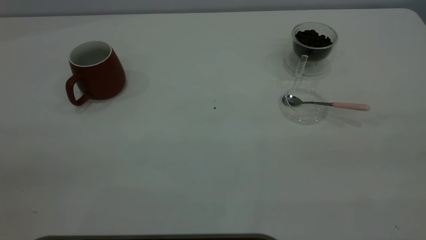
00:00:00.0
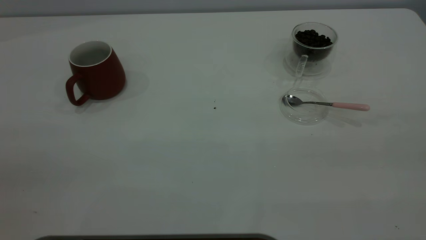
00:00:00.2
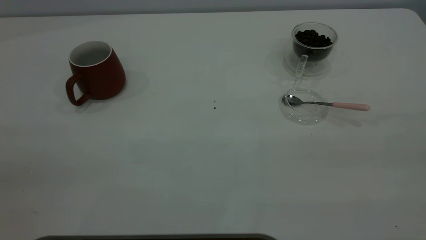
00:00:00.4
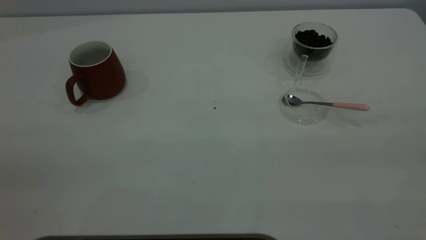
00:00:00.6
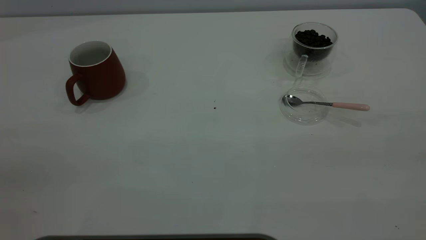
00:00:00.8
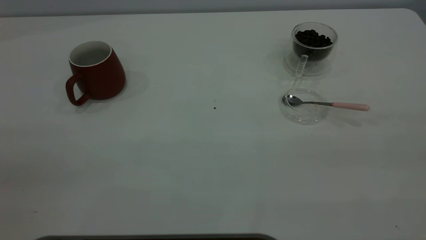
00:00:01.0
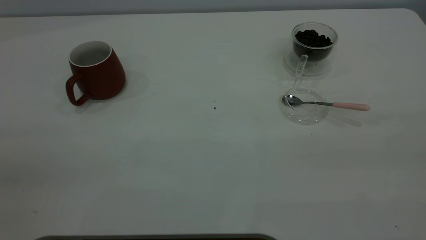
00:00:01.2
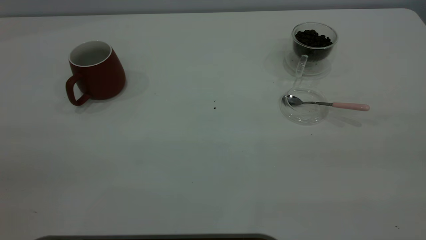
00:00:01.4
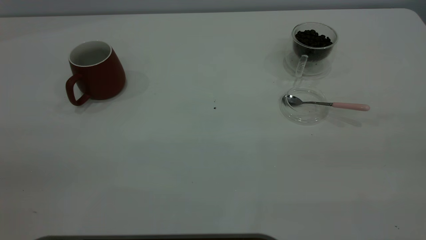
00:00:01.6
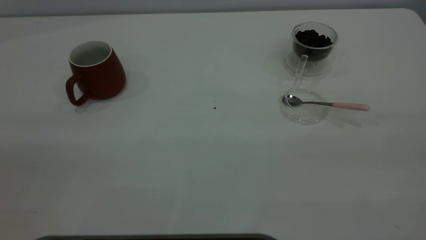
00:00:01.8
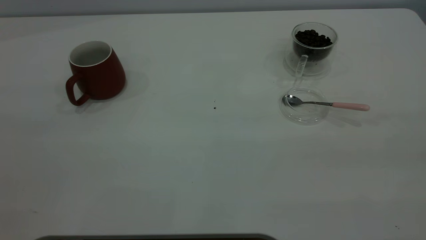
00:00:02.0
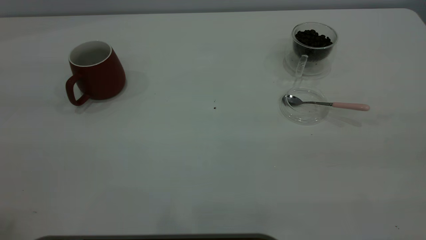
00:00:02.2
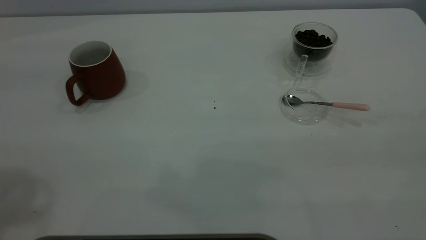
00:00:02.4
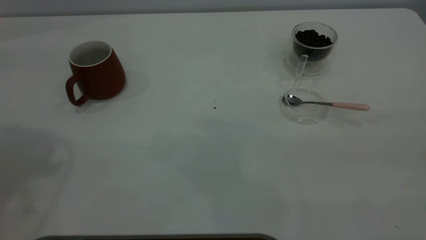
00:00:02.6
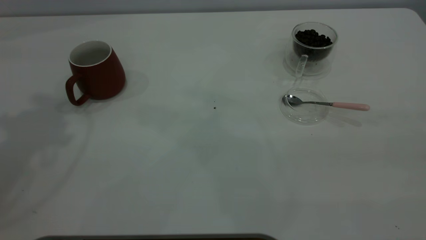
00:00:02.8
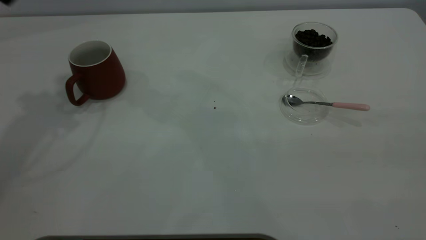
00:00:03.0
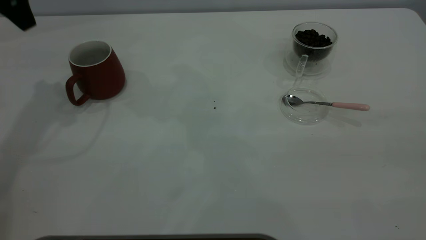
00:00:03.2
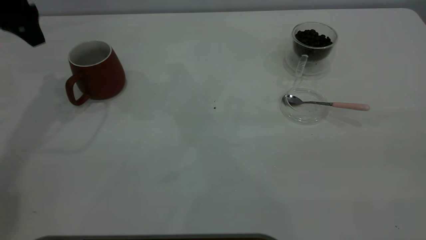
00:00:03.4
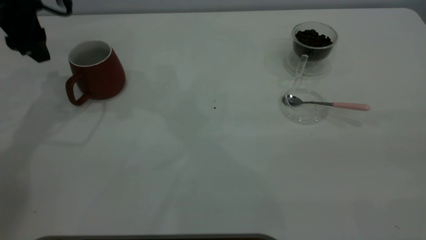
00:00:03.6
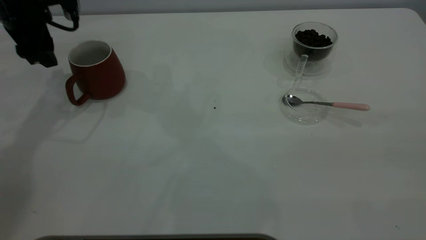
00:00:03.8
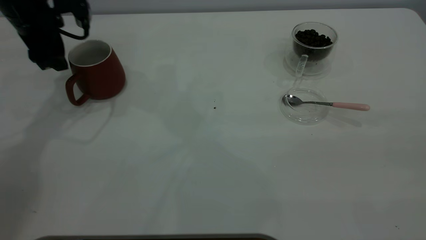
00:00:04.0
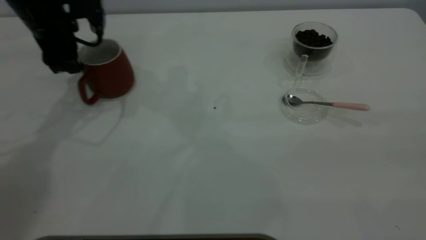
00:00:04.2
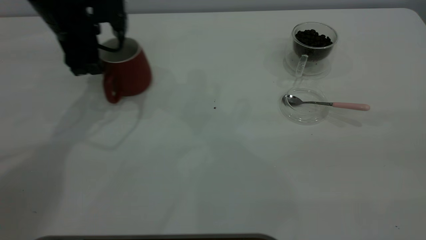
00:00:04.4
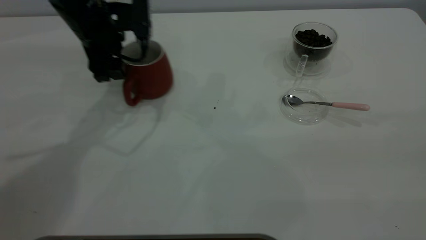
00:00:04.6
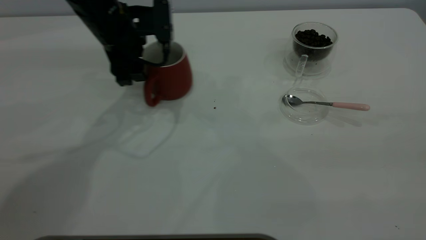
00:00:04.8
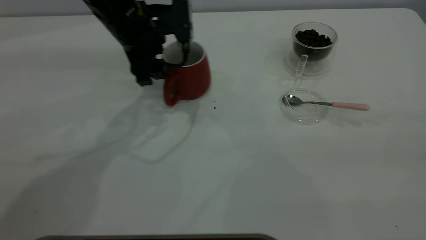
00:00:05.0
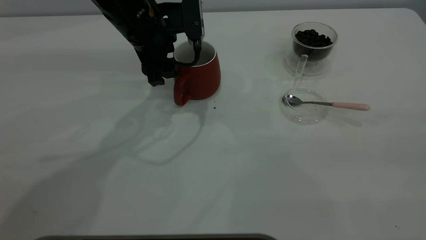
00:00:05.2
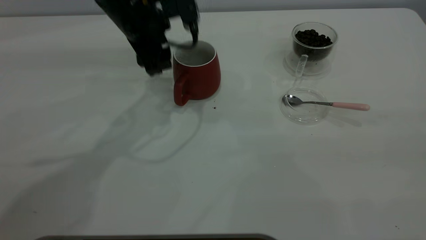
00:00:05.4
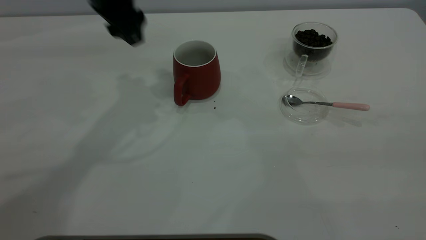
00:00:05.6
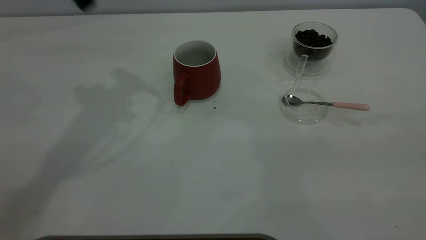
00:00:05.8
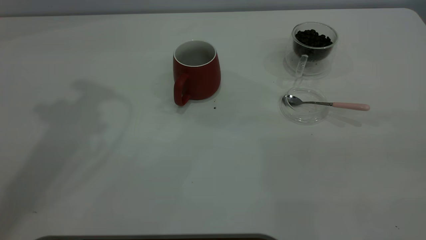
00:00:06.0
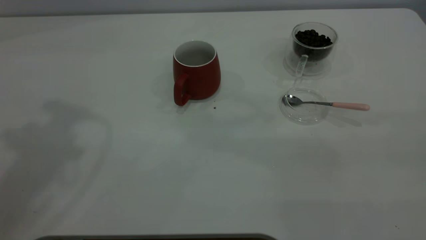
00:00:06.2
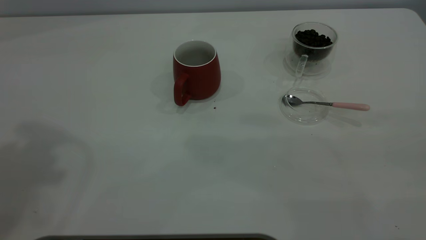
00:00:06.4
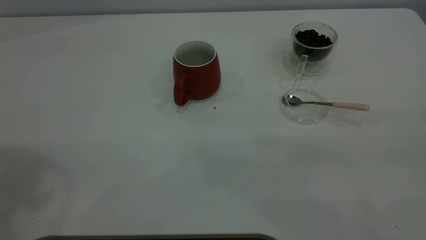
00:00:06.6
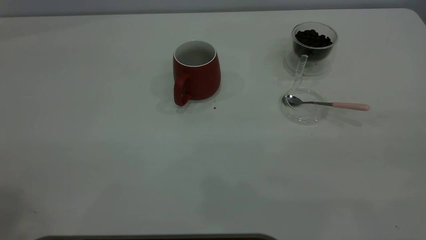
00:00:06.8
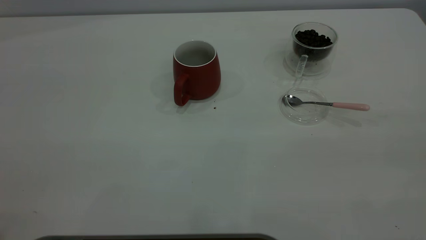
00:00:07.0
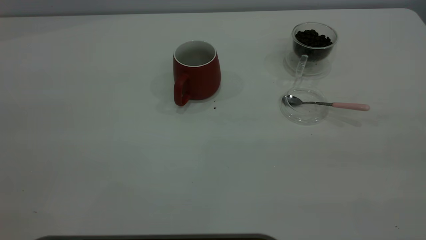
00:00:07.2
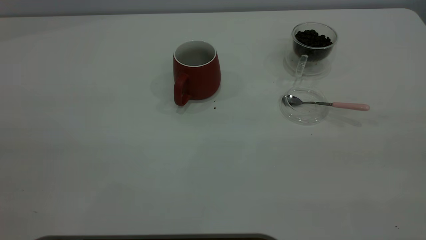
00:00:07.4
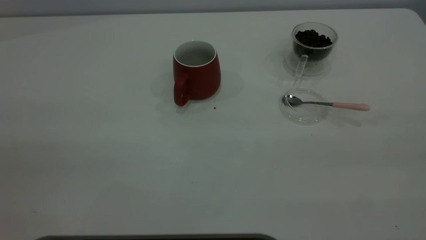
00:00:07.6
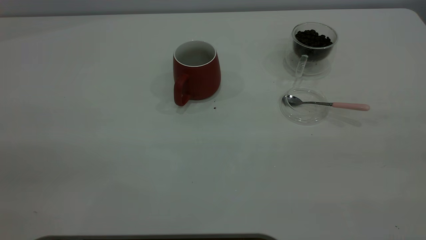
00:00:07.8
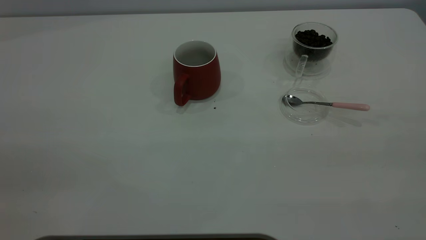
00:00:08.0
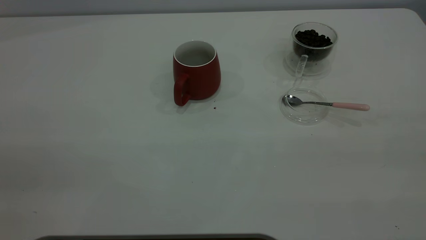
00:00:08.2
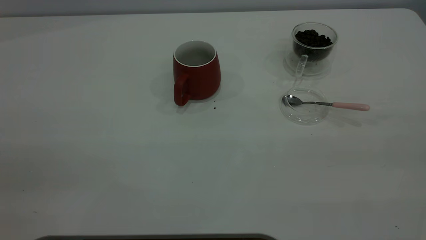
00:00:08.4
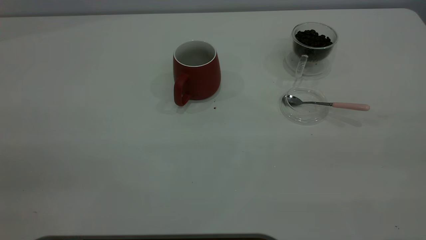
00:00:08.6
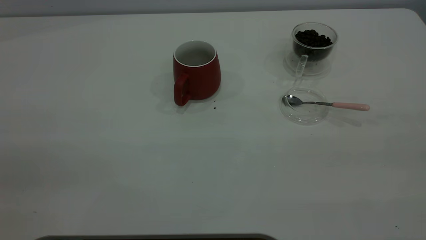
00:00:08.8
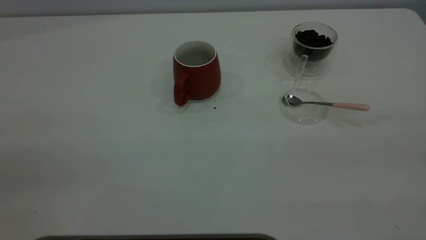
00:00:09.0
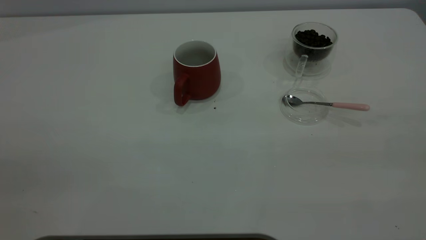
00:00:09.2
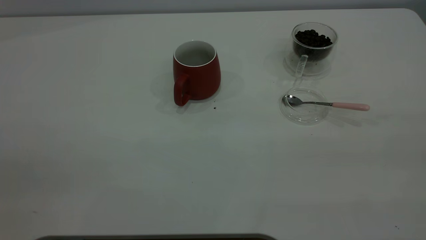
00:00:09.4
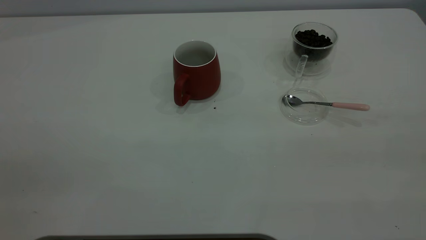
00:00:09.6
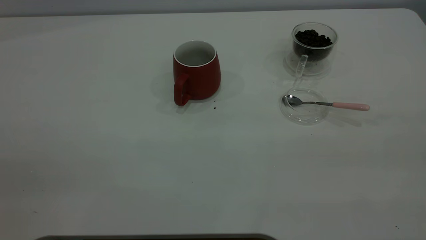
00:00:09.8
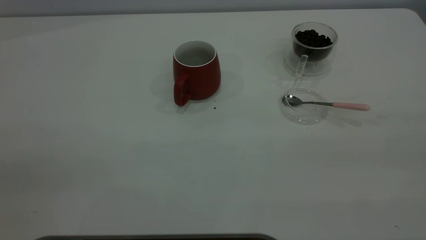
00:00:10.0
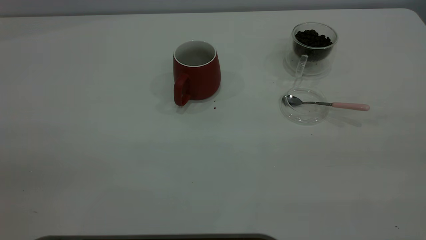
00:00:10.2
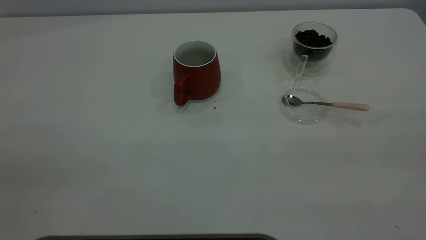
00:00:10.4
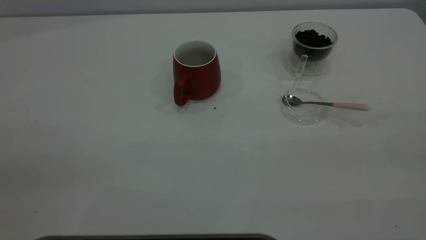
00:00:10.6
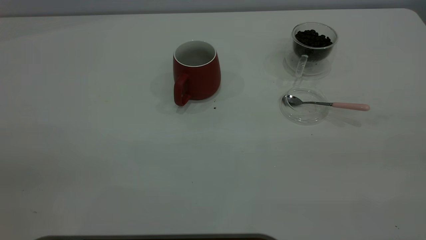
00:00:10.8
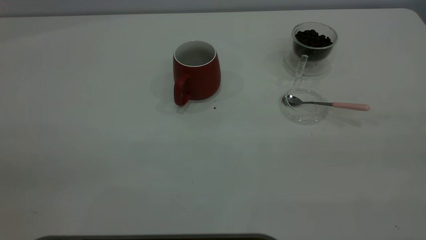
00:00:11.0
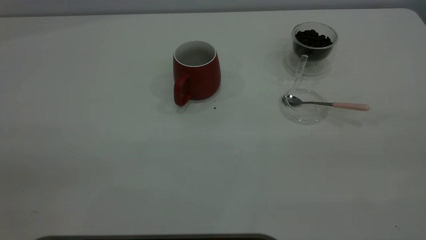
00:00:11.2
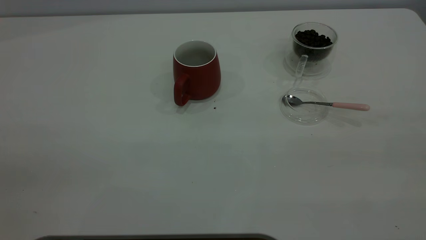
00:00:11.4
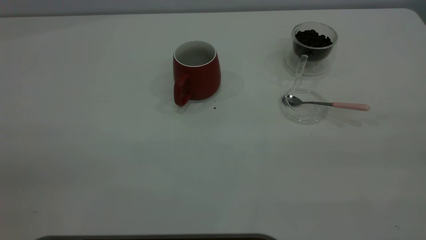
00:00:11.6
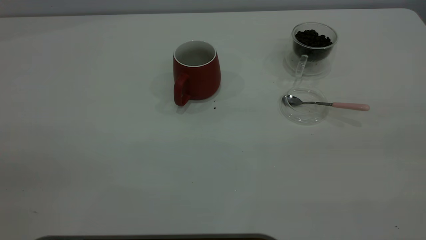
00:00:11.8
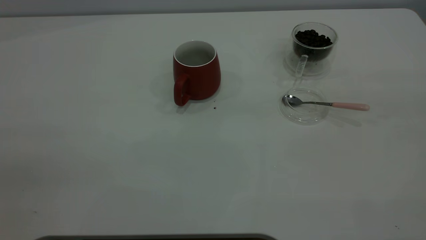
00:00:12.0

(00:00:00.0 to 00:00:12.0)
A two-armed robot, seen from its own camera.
Task of the whole recording: the left gripper place the red cup in the center of the table, the right gripper take the pink spoon from the cup lid and scoop out the coffee beans from the coffee cup and put them into the red cup, the right gripper put the spoon back into the cup lid.
Step, 00:00:00.0 - 00:00:05.4: Move the cup to the center of view.
00:00:00.0 - 00:00:01.6: Neither gripper changes place.
00:00:03.0 - 00:00:04.4: The left gripper moves downward and to the right, roughly 15 cm.
00:00:04.4 - 00:00:06.0: The left gripper travels upward by some 25 cm.

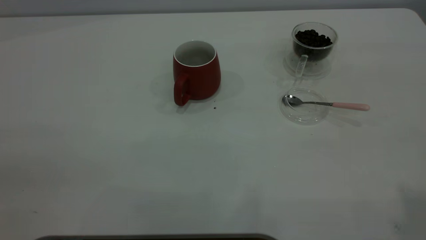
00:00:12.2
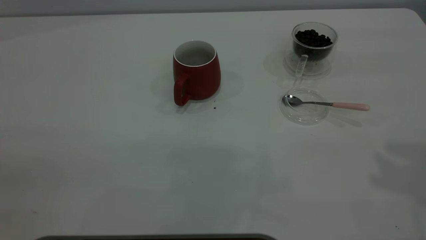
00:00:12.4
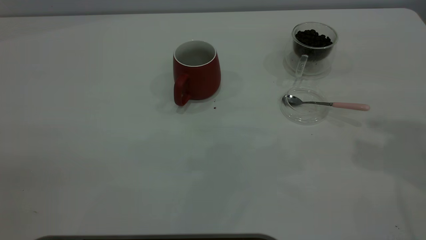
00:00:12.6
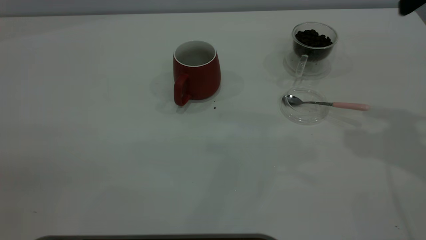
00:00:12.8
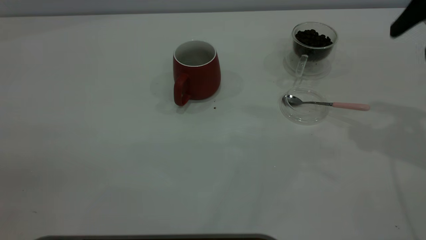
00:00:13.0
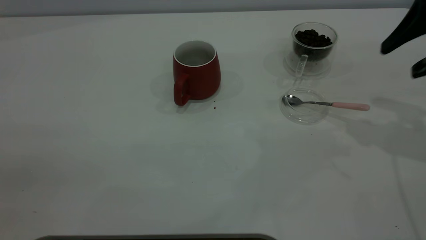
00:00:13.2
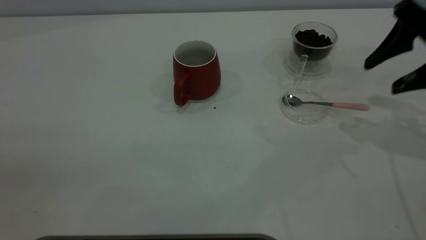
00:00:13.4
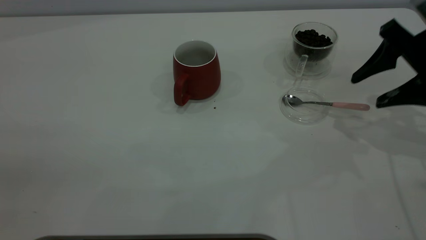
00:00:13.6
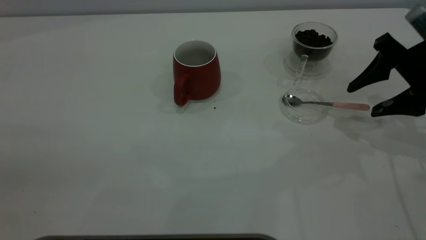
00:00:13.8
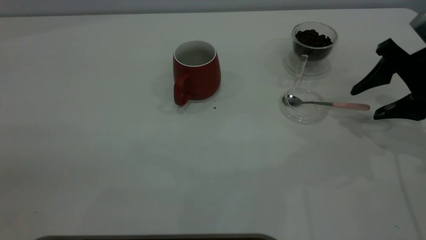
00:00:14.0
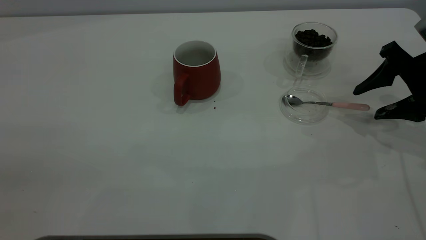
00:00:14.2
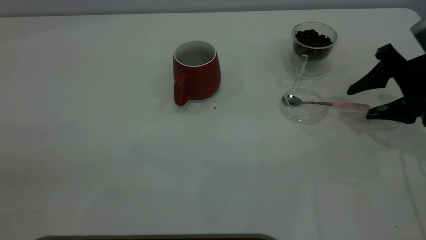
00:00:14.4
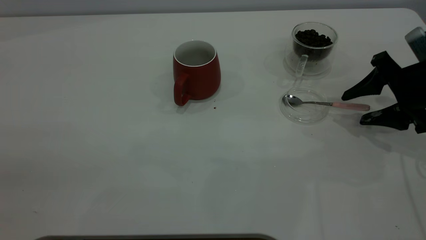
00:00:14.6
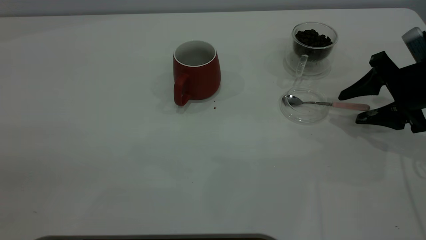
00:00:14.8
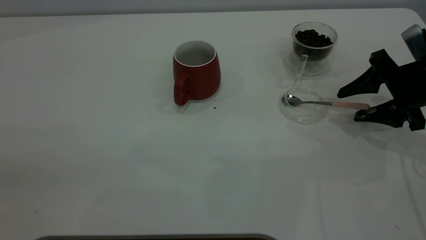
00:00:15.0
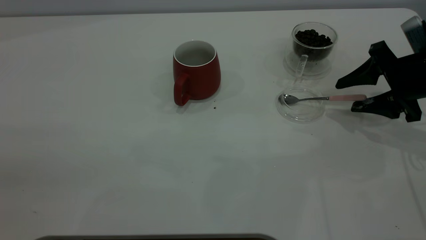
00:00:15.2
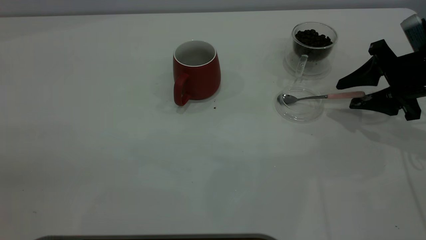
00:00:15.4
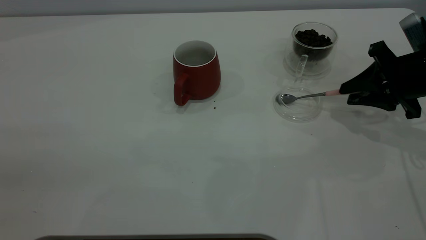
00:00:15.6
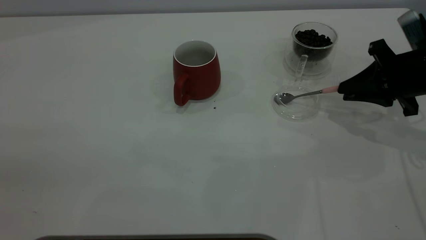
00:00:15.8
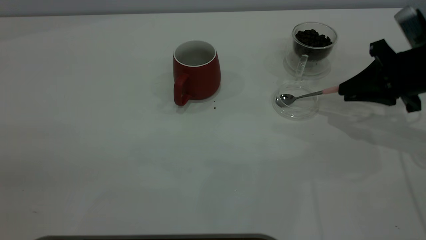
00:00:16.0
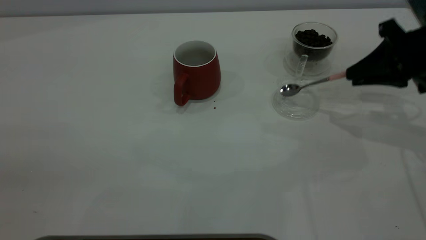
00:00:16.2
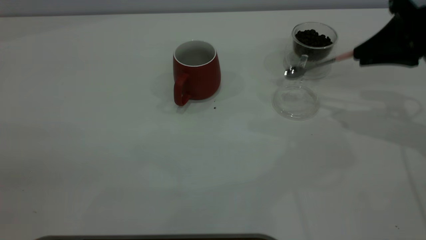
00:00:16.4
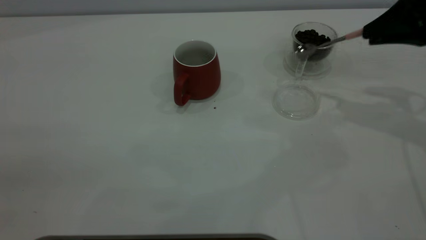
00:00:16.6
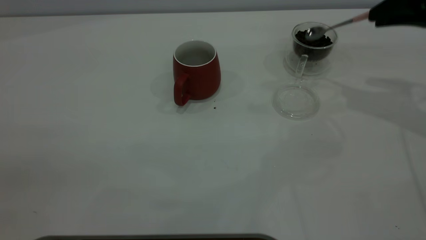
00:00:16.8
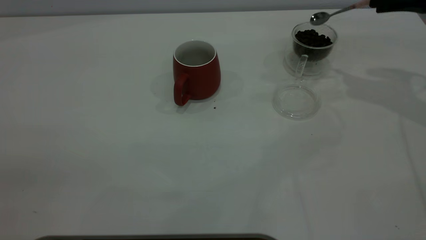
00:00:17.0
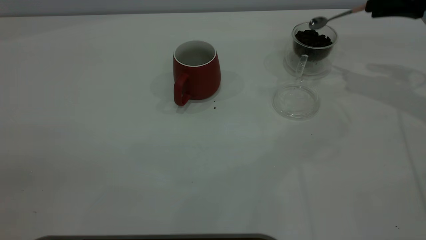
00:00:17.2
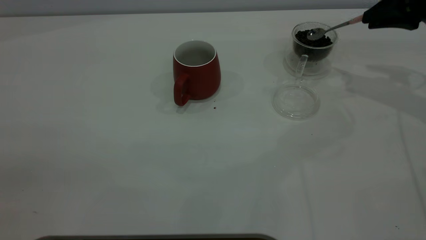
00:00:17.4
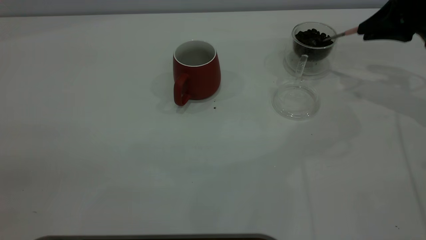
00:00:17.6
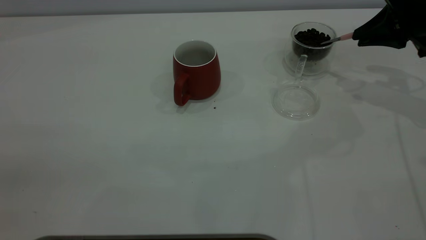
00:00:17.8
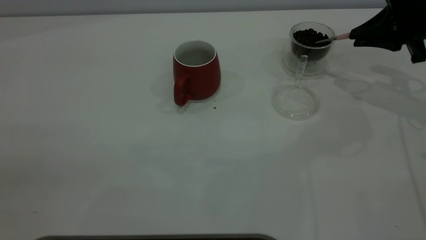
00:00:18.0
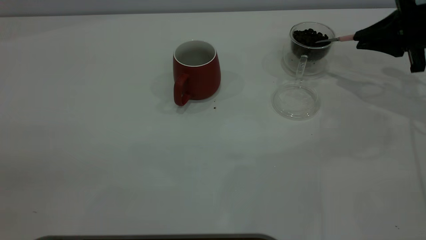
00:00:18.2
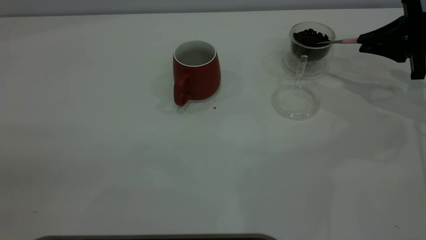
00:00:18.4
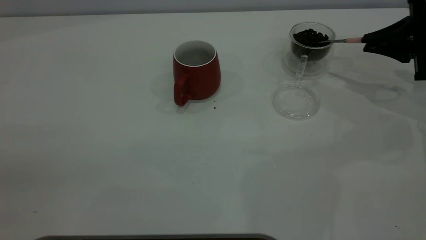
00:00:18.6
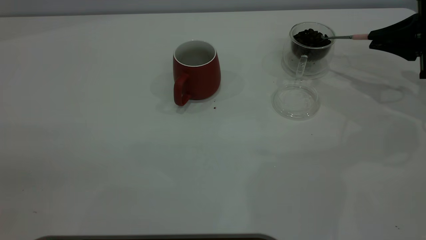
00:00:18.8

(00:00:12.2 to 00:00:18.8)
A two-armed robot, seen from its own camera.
Task of the whole recording: the left gripper place the red cup in the center of the table, the right gripper take the pink spoon from the cup lid and scoop out the coffee beans from the coffee cup and put them into the red cup, the right gripper put the spoon back into the cup lid.
Step, 00:00:12.2 - 00:00:16.2: Pick up the spoon.
00:00:12.2 - 00:00:13.8: The right gripper goes about 35 cm downward and forward.
00:00:13.8 - 00:00:15.4: The right gripper closes up.
00:00:15.4 - 00:00:17.2: The right gripper heads upward and forward, covering roughly 15 cm, and closes up.
00:00:17.2 - 00:00:18.8: The right gripper moves downward, roughly 10 cm.
